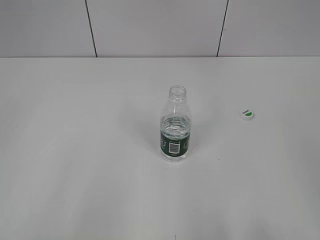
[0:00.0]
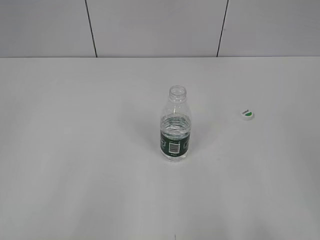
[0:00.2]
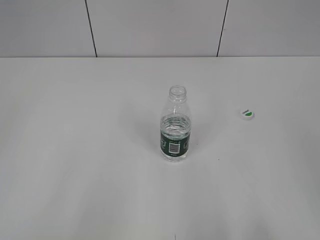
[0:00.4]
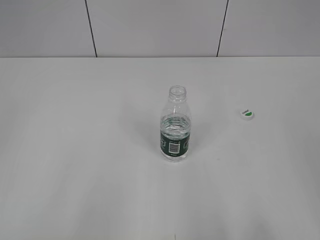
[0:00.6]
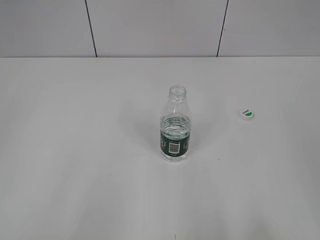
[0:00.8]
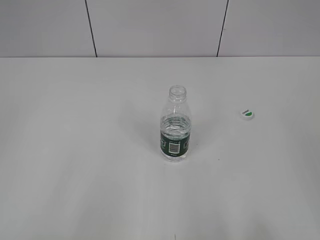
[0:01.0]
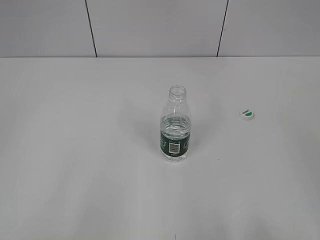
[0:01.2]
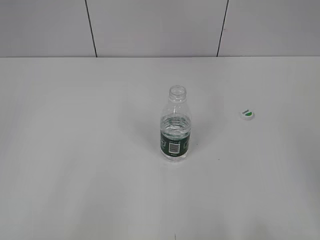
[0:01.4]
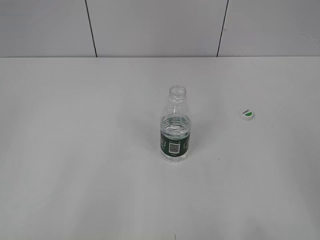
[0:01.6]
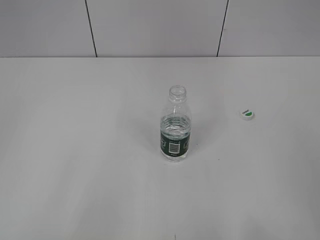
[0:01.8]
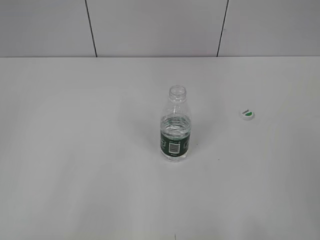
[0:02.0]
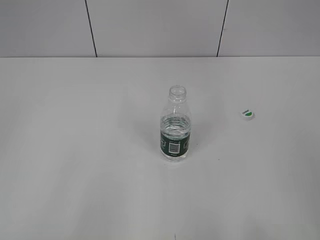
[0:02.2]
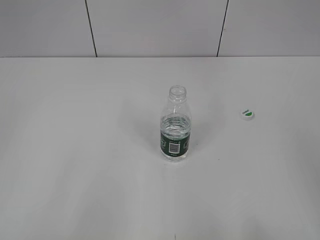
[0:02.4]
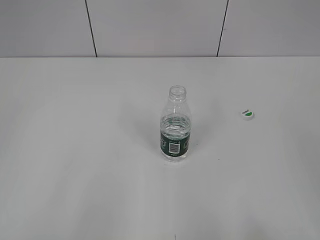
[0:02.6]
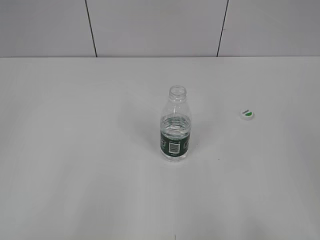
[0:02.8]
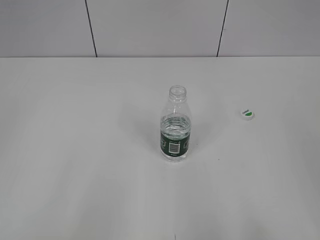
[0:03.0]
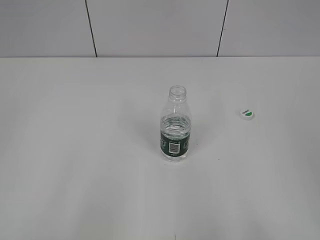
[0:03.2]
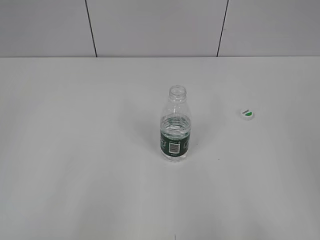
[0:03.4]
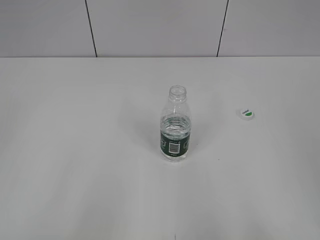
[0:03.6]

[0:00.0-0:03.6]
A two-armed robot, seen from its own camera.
0:00.0 to 0:03.6: The two grippers keep their place.
